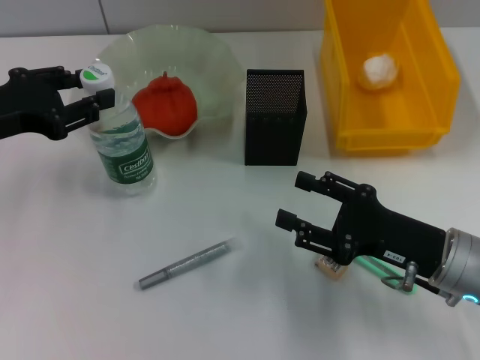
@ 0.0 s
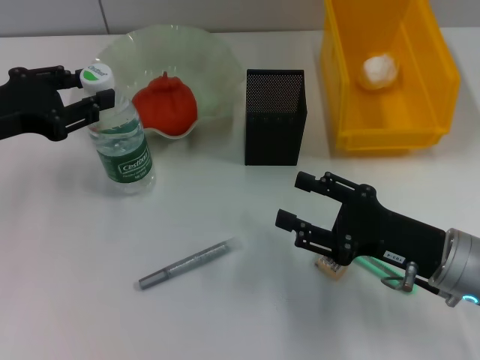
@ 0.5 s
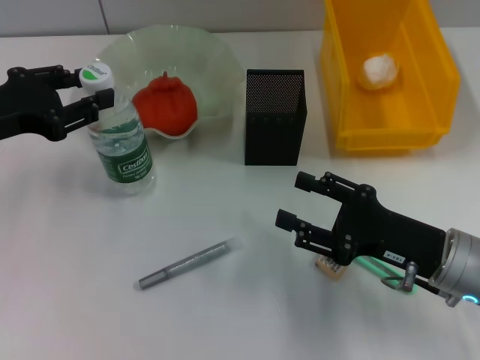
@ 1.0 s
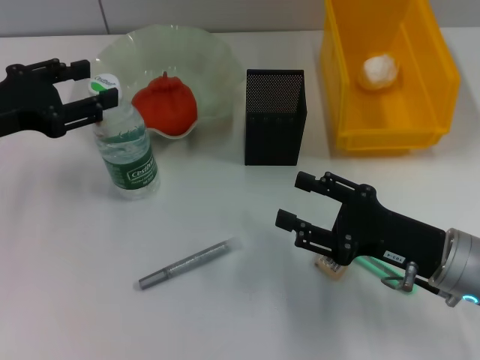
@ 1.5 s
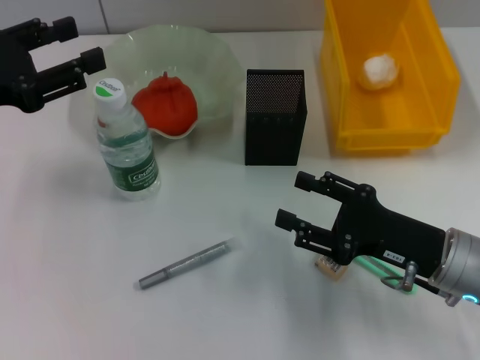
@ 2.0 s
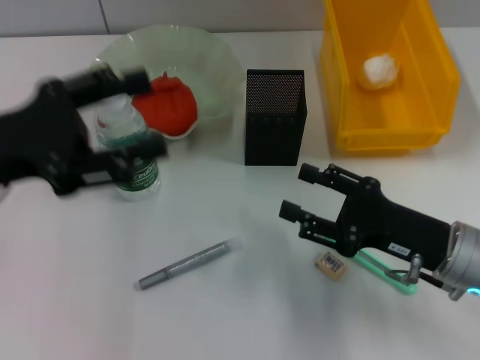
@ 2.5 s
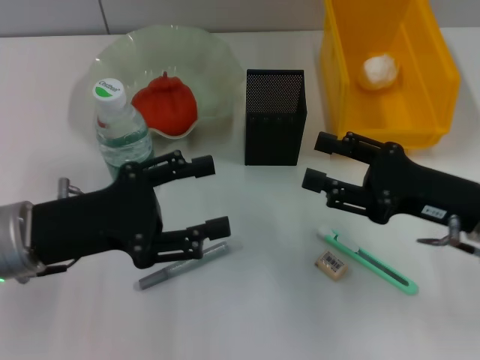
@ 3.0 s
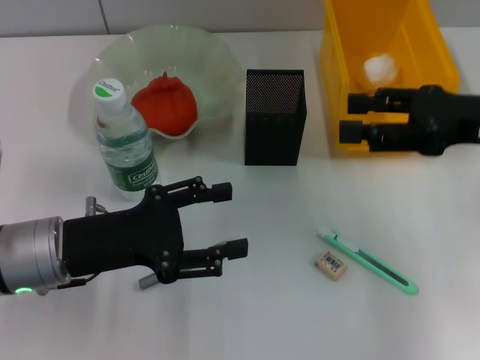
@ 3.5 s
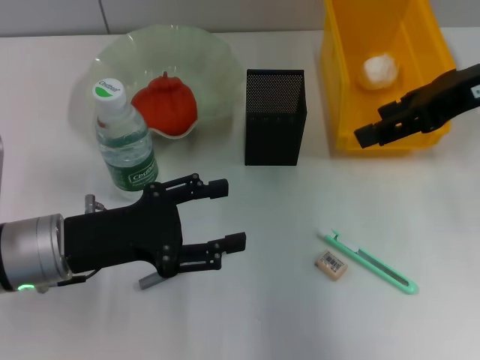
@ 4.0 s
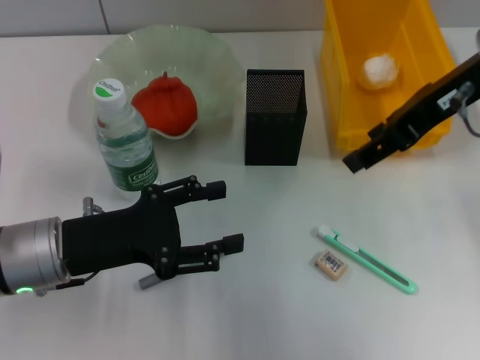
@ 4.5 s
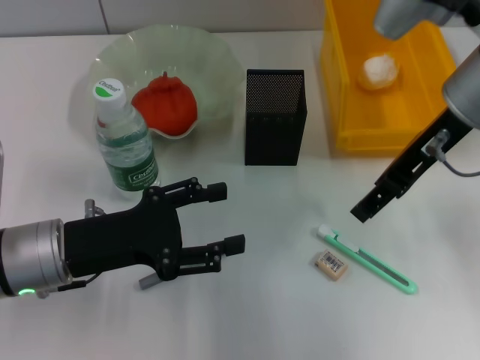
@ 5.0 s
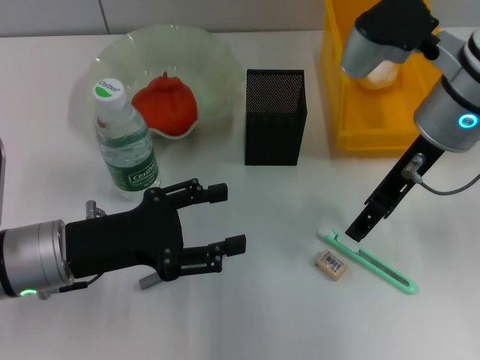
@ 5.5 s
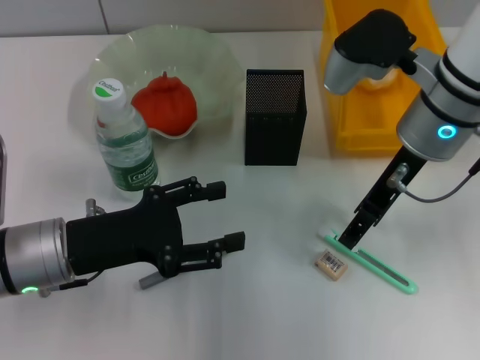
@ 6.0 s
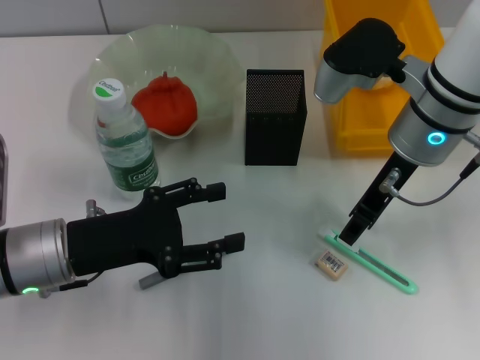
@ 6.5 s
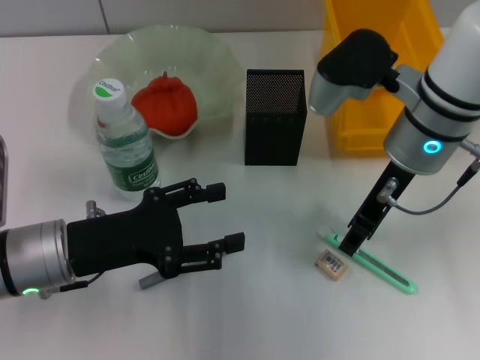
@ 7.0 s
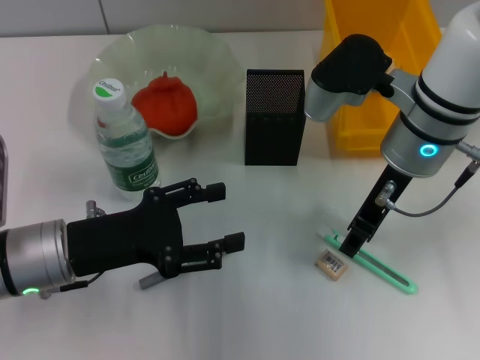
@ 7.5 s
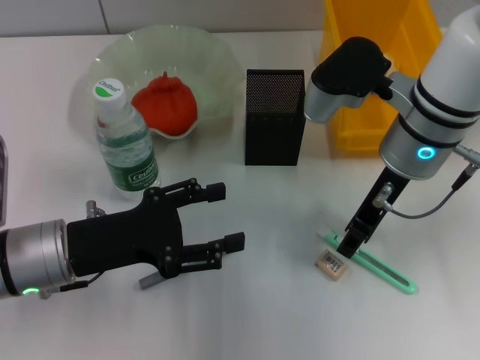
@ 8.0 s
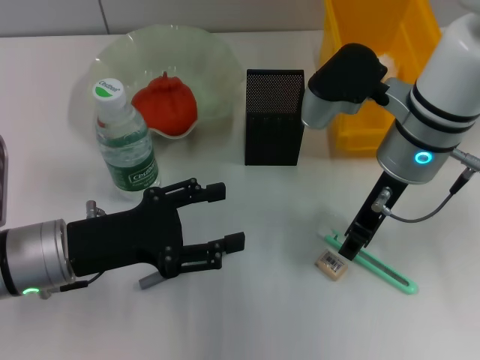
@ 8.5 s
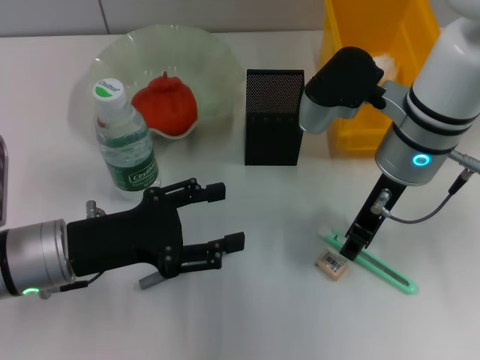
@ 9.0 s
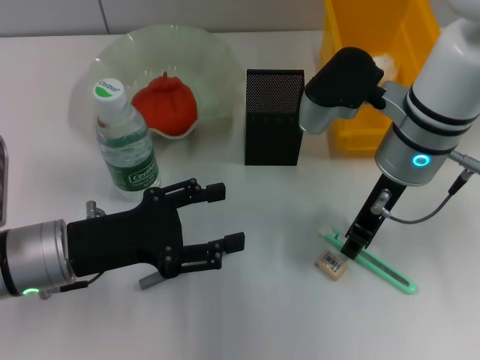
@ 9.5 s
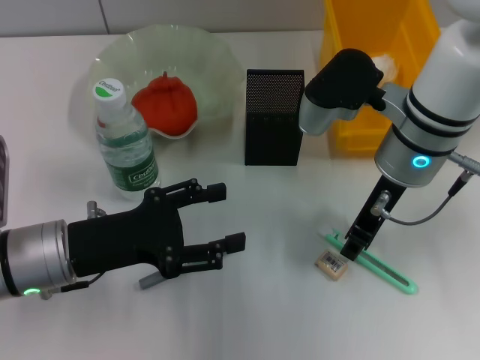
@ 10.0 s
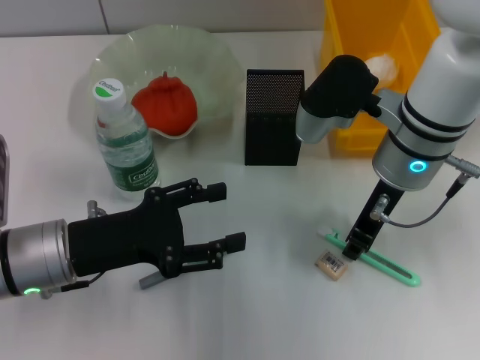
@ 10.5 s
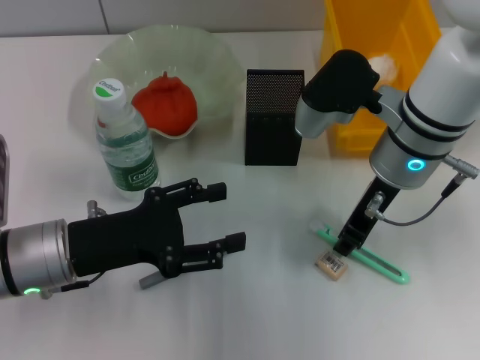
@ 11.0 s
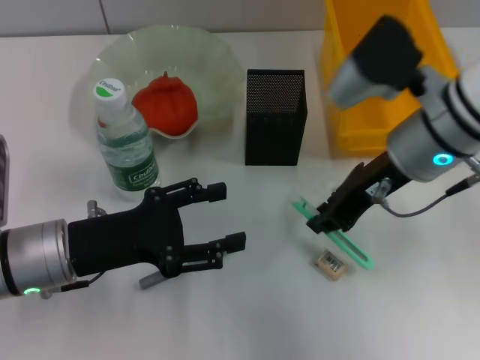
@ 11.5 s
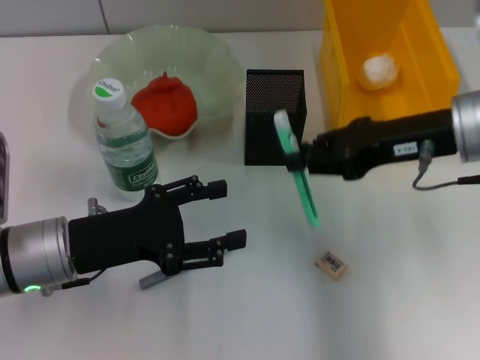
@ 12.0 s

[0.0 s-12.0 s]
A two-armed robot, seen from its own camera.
Step, 2.0 to 10.5 s: Grab the blue utility knife with the right hand.
0.0 to 2.0 s: There are only small adjustments of the grippers.
2.0 to 4.0 s: The left gripper is displaced downward and to the right by roughly 15 cm. Meanwhile the right gripper is displaced upward and forward by approximately 25 cm.
4.0 to 6.0 s: The right gripper heads downward and to the left, covering some 10 cm.
6.0 to 8.0 s: The right gripper closes its fingers.
8.0 to 10.0 s: Both grippers stay about where they are.
10.0 to 12.0 s: The right gripper goes about 10 cm to the right.

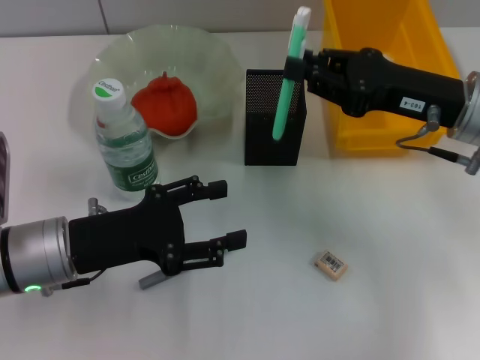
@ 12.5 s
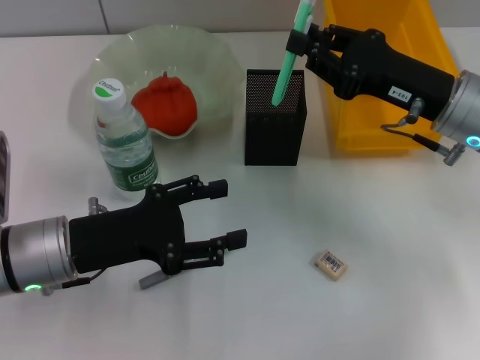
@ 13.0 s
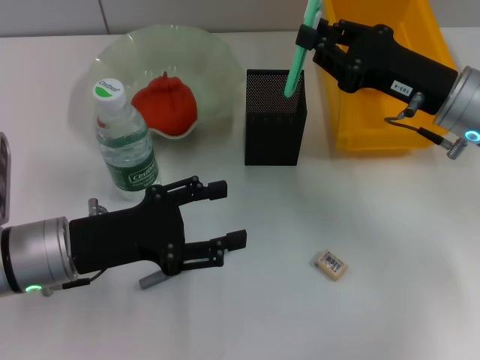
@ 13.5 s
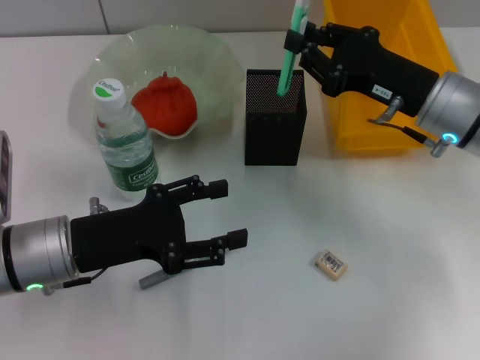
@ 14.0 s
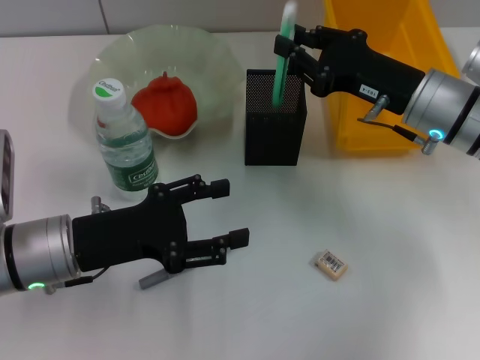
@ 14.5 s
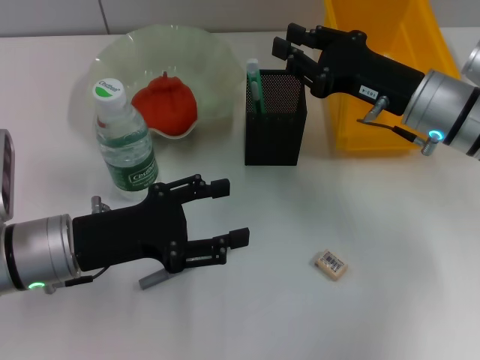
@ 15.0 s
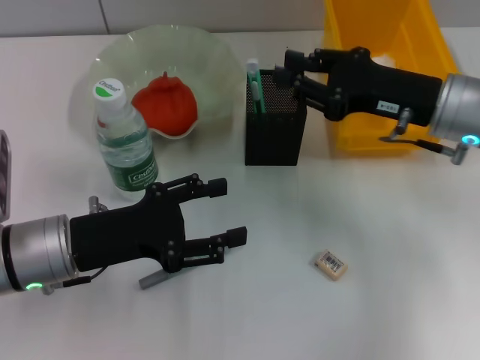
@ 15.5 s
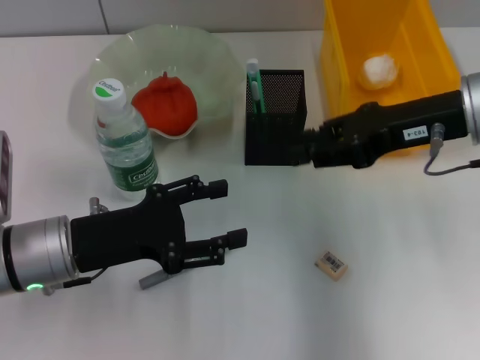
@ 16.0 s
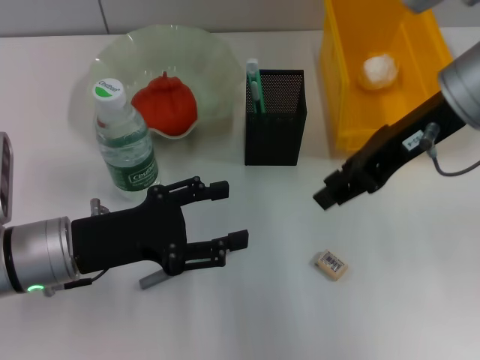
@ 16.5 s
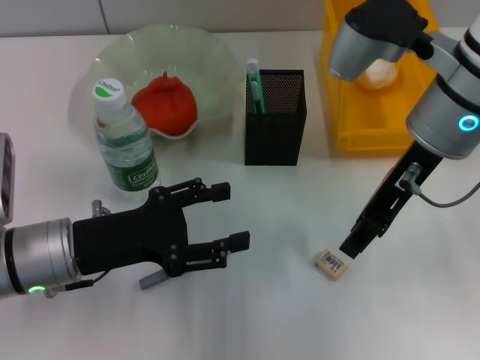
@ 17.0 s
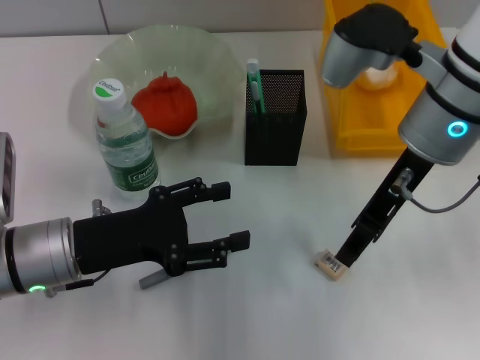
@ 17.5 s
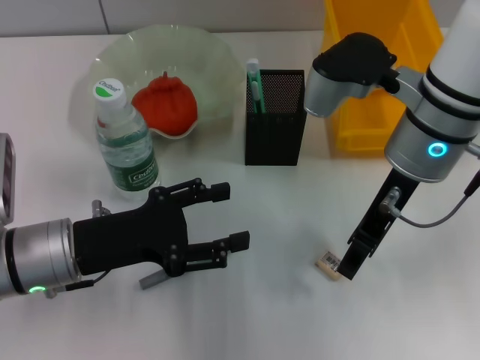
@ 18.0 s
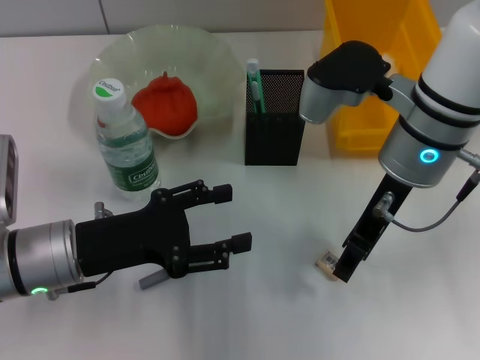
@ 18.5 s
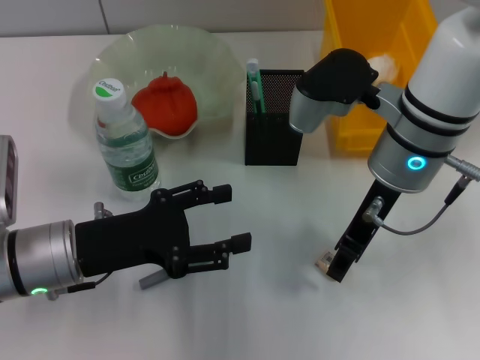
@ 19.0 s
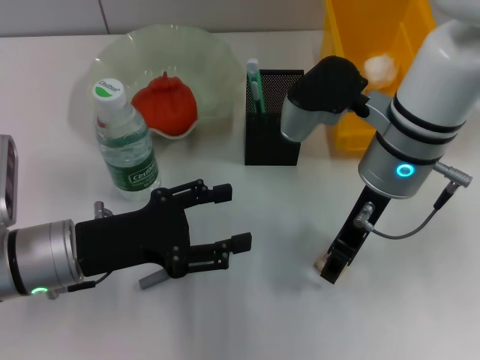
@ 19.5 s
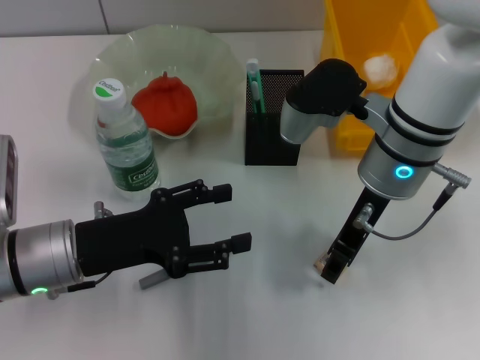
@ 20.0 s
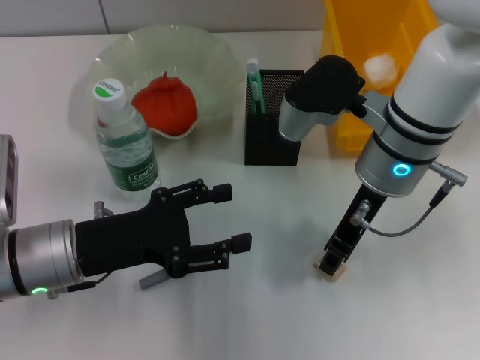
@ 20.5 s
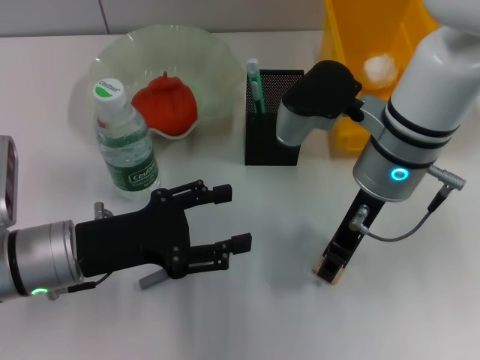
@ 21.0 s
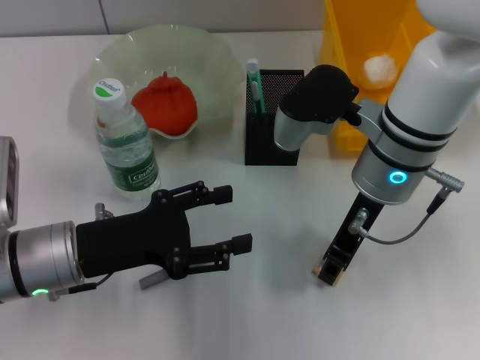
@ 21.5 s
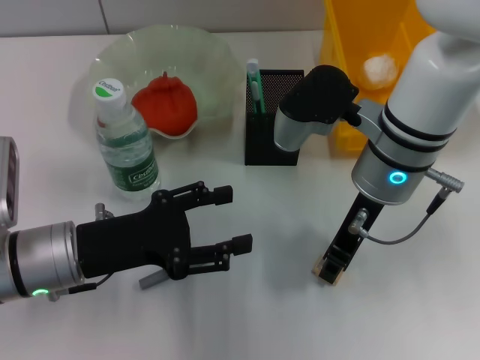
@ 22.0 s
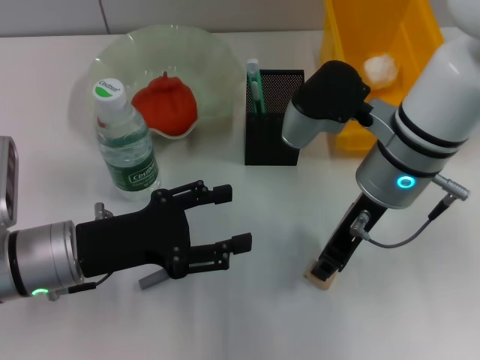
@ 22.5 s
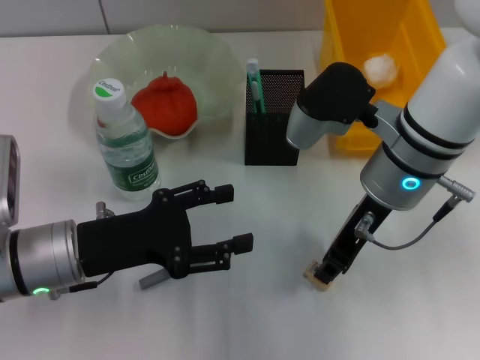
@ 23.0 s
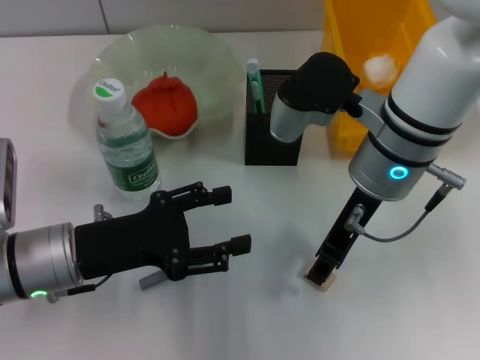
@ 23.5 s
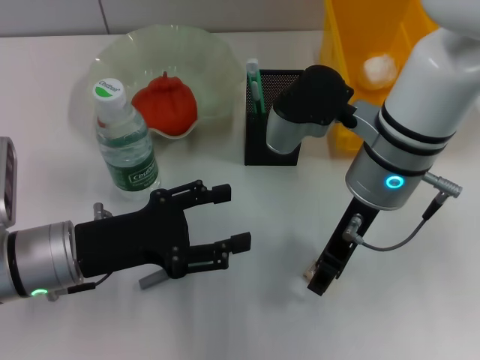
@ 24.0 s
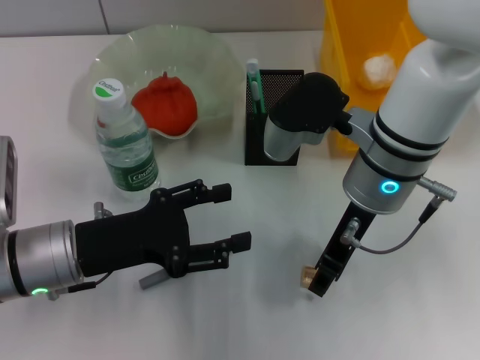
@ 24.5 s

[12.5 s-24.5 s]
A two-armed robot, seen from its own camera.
Step, 12.5 to 15.0 s: Place the blue utility knife into the pen holder with the right hand.
12.5 to 14.5 s: The right gripper changes place by approximately 5 cm.
14.5 to 16.5 s: The right gripper goes some 10 cm upward.
16.5 to 18.5 s: The right gripper heads downward, covering some 5 cm.
18.5 to 20.5 s: The grippers stay close to where they were, moving slightly.
20.5 to 22.5 s: The two grippers keep their place.
22.5 to 24.5 s: The grippers make only small movements.

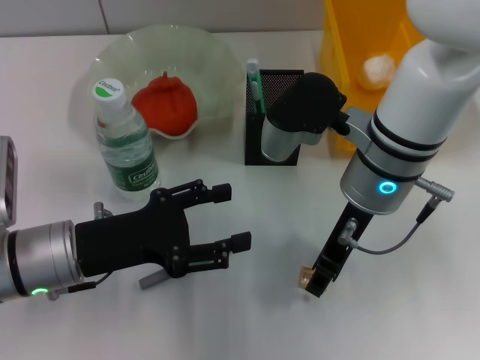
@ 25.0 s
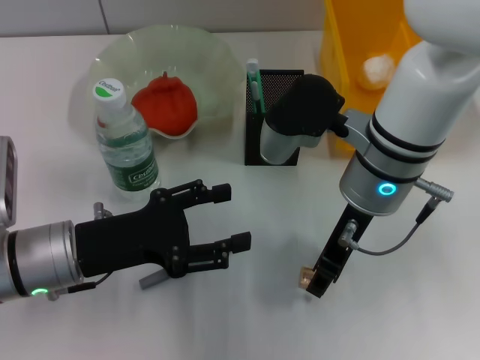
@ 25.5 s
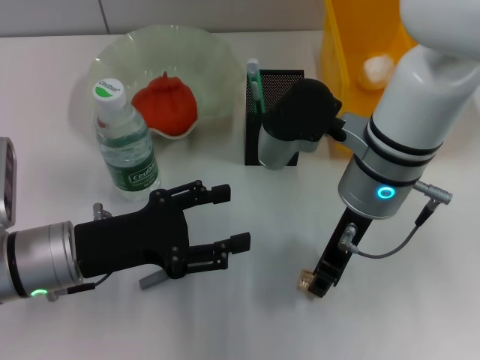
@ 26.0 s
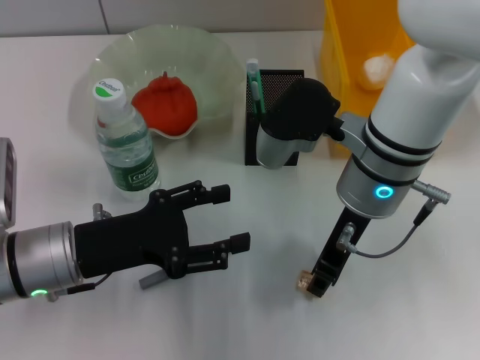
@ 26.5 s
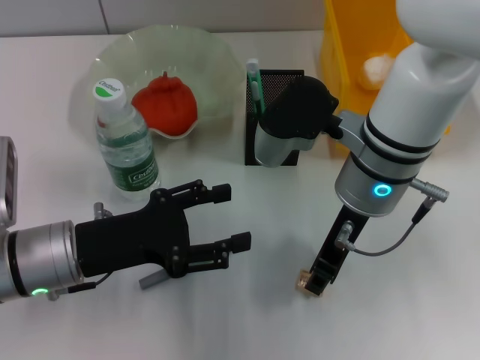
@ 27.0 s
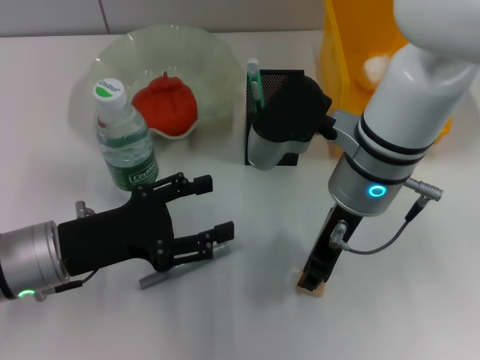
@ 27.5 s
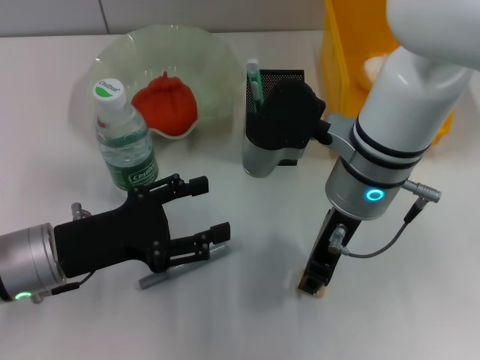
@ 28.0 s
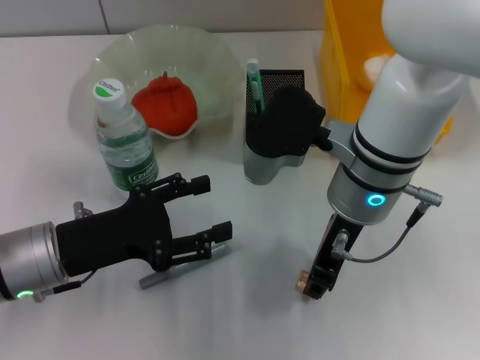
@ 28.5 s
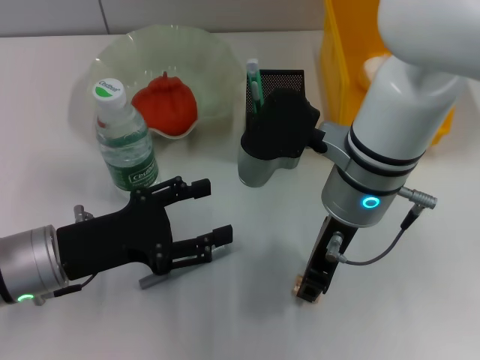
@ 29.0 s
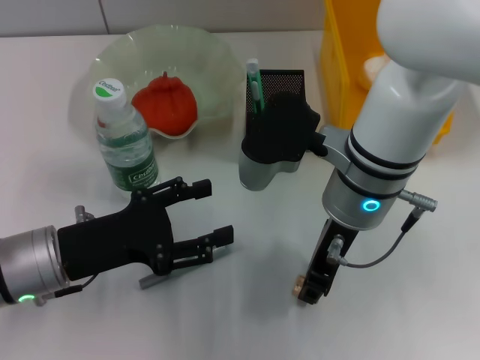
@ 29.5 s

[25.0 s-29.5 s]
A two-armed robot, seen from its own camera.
25.0 to 27.0 s: Both grippers stay put.
27.0 to 29.5 s: The grippers make only small movements.
